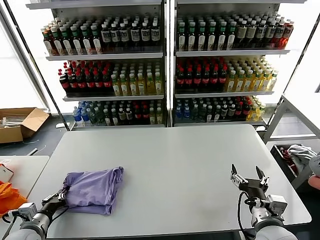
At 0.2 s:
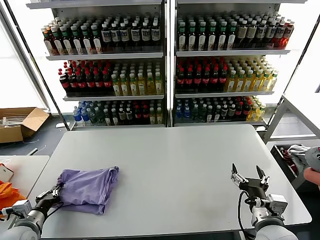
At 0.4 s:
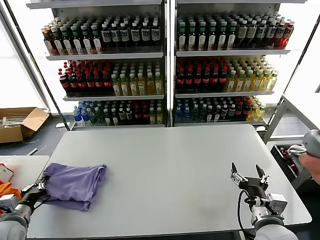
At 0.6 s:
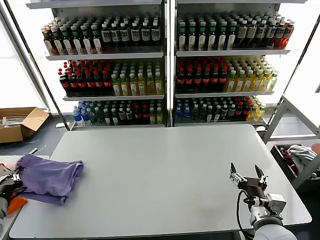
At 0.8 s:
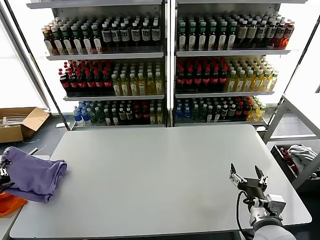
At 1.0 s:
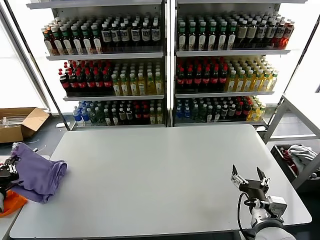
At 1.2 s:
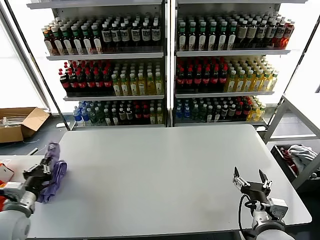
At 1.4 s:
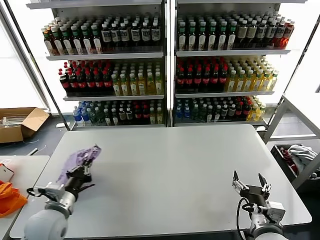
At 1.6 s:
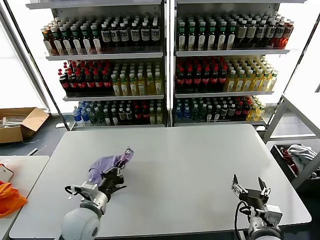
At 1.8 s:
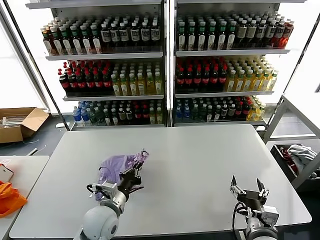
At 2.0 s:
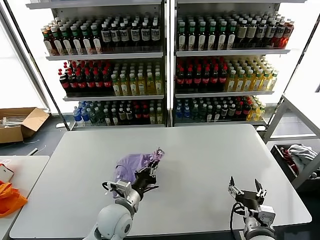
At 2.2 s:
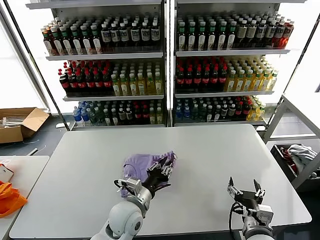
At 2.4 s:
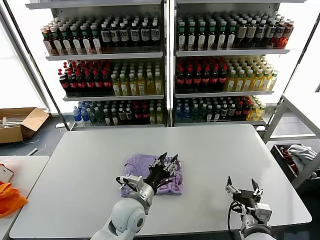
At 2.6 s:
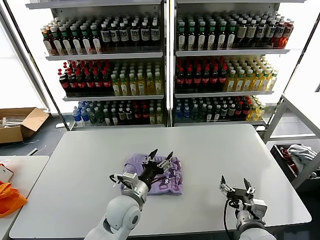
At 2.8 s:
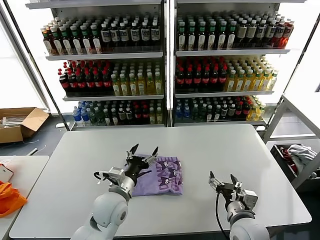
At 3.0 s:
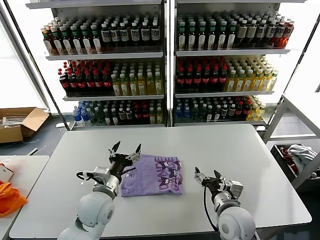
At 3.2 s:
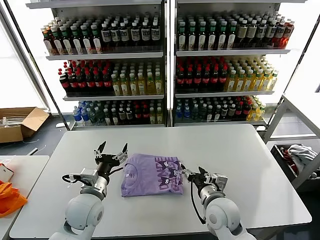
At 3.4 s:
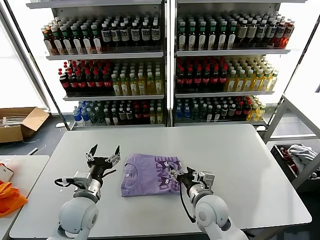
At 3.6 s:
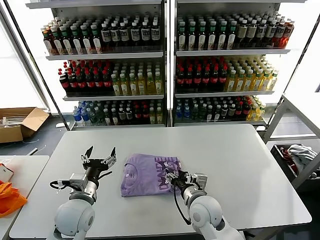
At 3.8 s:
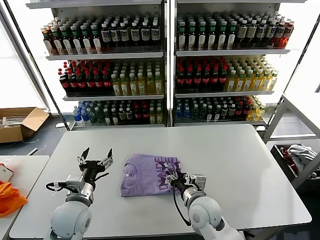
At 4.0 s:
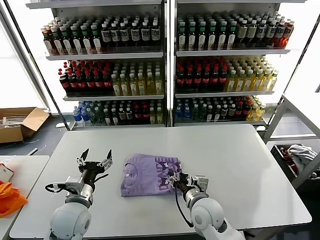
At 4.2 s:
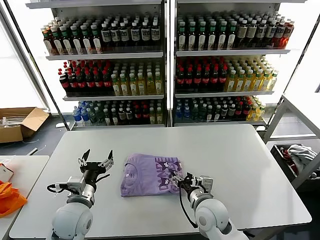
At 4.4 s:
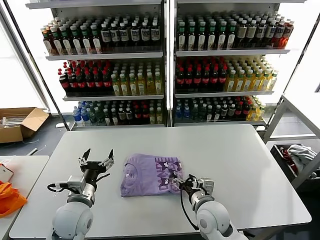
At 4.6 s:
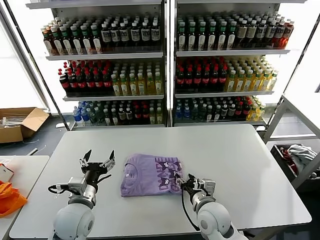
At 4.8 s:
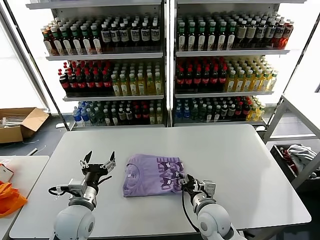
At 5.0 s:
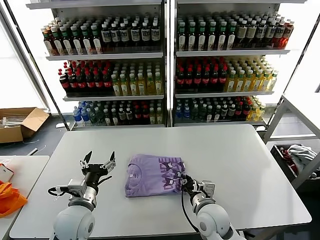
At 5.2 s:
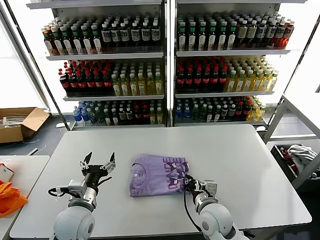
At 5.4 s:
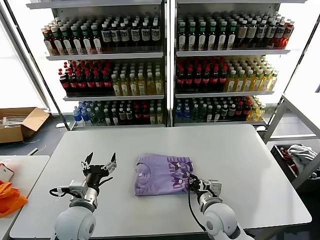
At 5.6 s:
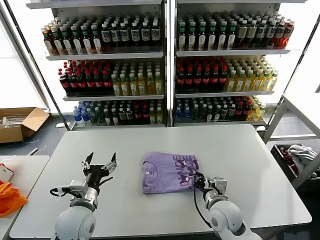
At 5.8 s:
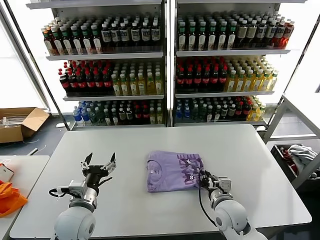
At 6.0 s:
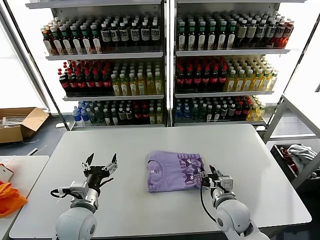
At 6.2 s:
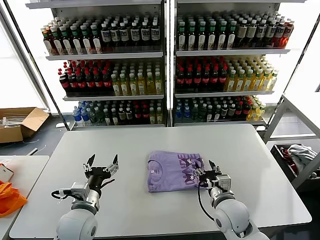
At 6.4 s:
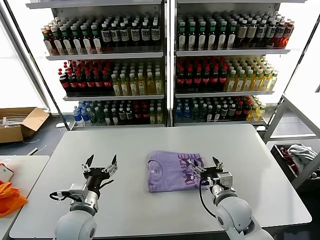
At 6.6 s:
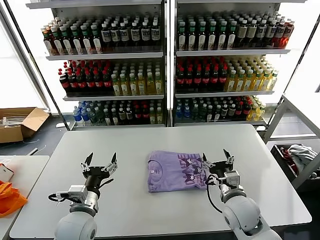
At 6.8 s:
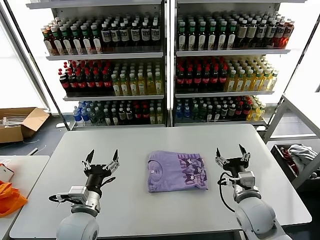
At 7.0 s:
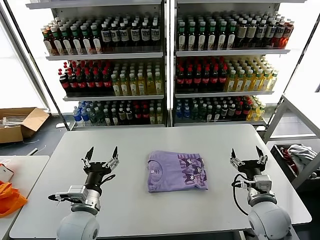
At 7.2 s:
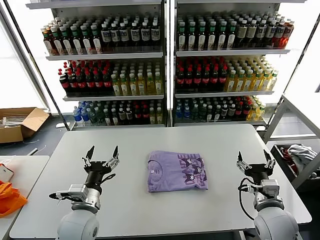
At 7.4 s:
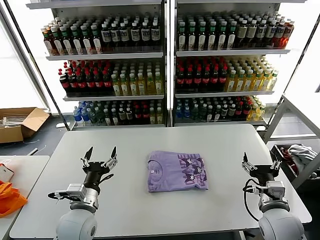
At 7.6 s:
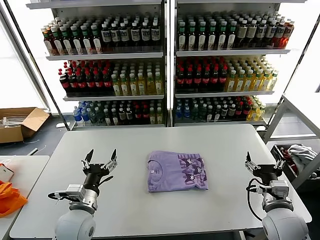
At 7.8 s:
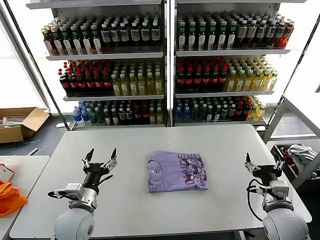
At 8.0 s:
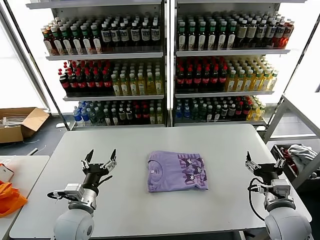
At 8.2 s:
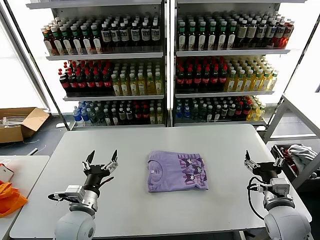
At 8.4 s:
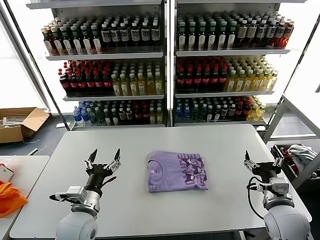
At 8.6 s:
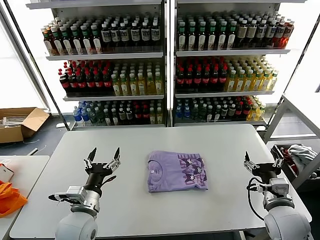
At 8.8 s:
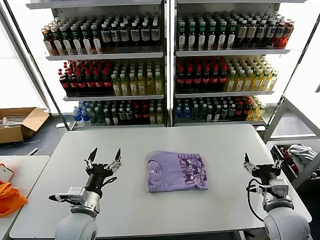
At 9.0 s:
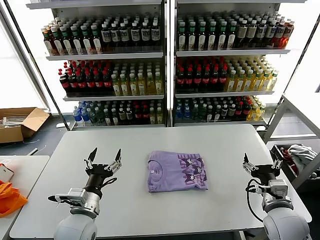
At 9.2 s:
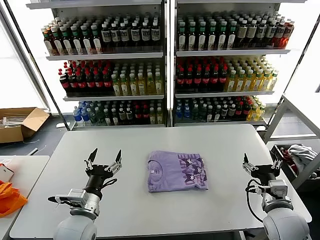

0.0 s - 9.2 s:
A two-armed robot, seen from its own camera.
Task of the whole recording: fold and organize the clothes.
Step, 0.0 s - 2.4 s: Flip the folded clothes over with left gripper.
Step, 2.6 s - 6.2 s: Drag the clothes to the center of the table.
0.0 s - 1.6 s: The left gripper moves to the right, about 15 cm.
1.6 s - 3.0 s: The left gripper travels to the right by roughly 5 cm, and opens. Meanwhile the right gripper goes approximately 10 cm forward and to the left.
3.0 s - 4.6 s: The grippers both shift to the left by some 5 cm.
4.6 s - 6.2 s: The right gripper travels to the right by approximately 5 cm, and closes and opens again.
6.2 s - 7.6 s: The right gripper is displaced to the right by approximately 10 cm, and opens.
7.6 s - 9.2 s: The grippers make only small movements.
